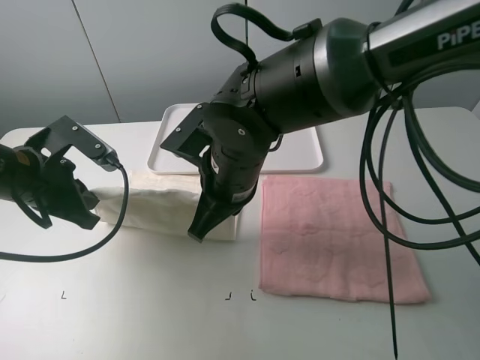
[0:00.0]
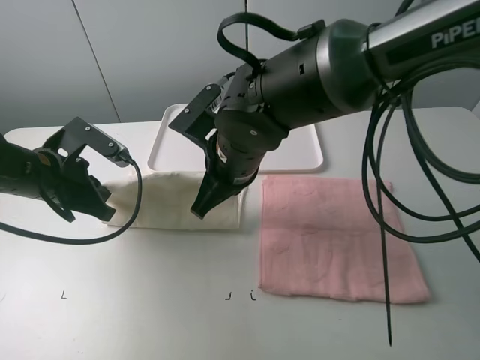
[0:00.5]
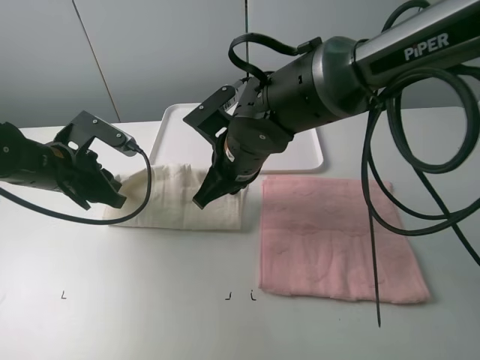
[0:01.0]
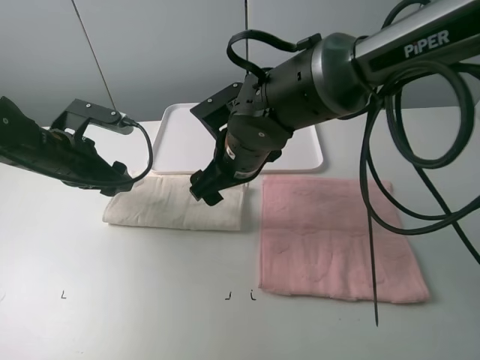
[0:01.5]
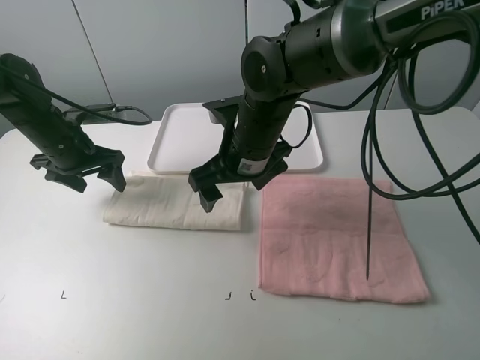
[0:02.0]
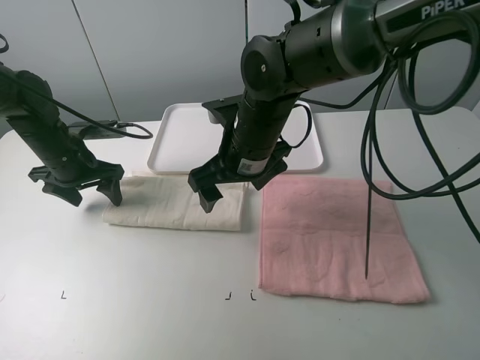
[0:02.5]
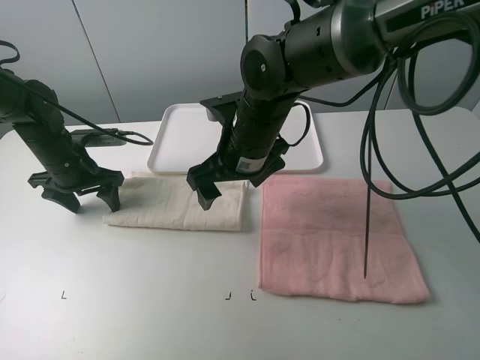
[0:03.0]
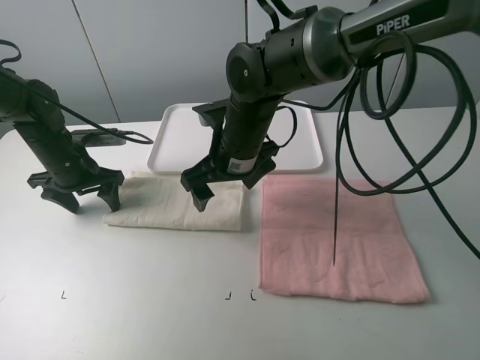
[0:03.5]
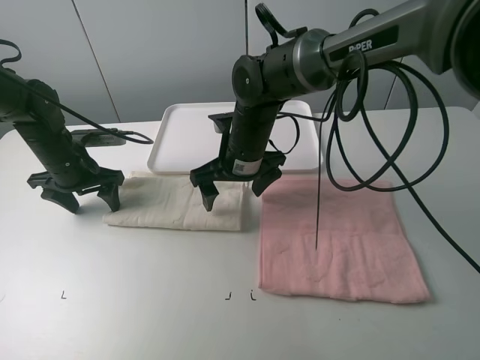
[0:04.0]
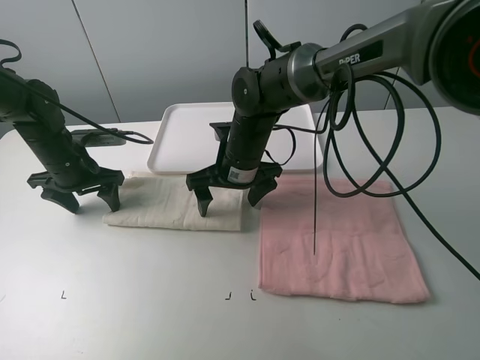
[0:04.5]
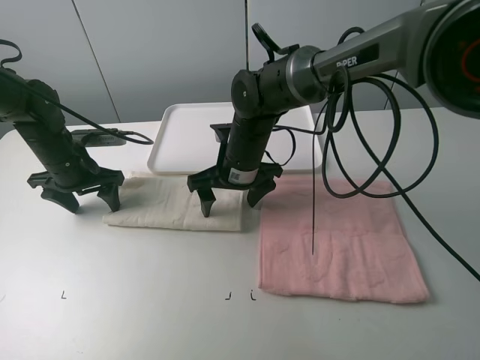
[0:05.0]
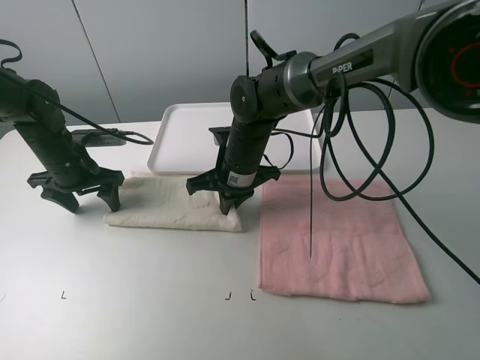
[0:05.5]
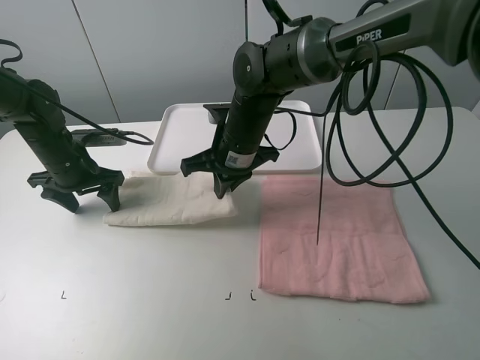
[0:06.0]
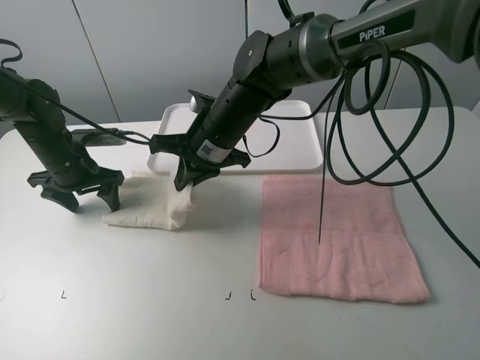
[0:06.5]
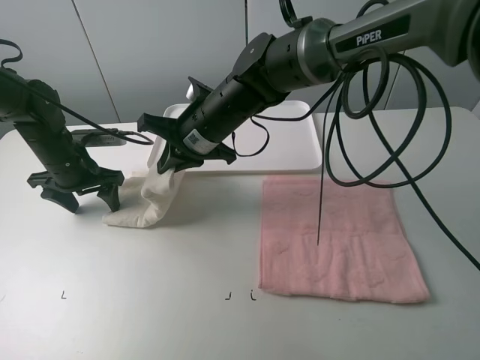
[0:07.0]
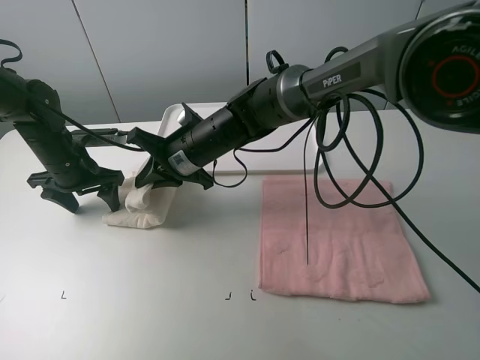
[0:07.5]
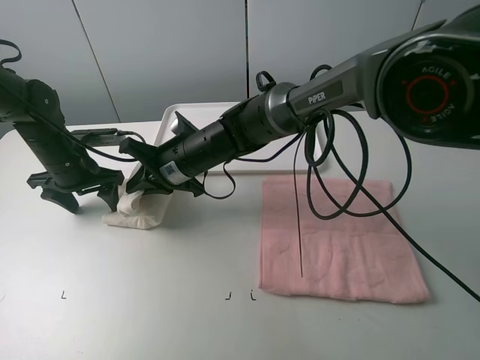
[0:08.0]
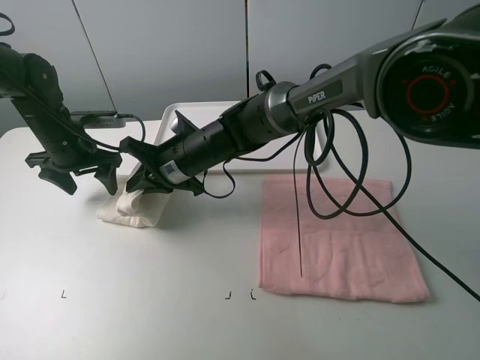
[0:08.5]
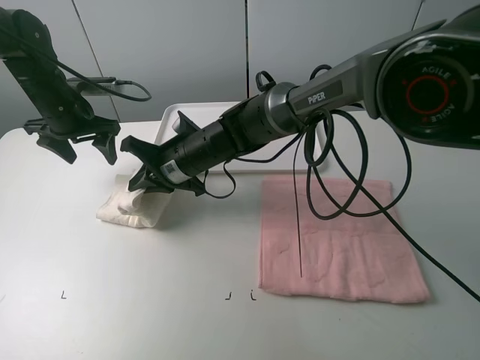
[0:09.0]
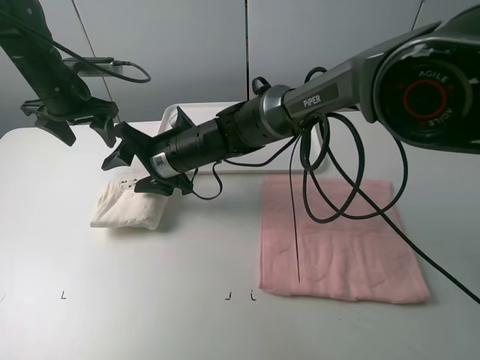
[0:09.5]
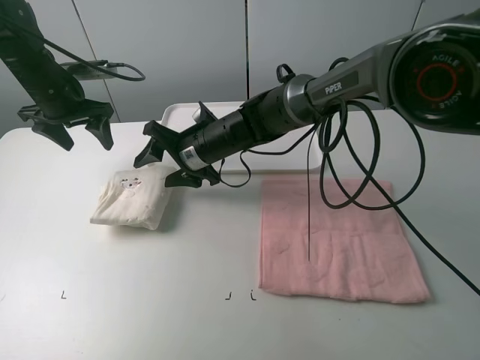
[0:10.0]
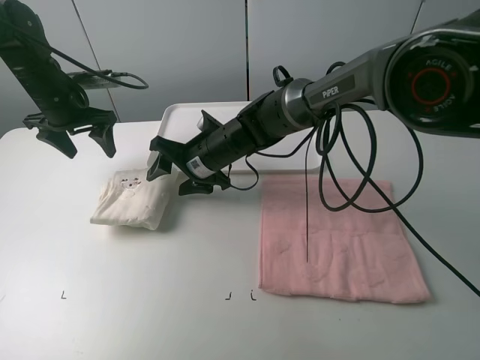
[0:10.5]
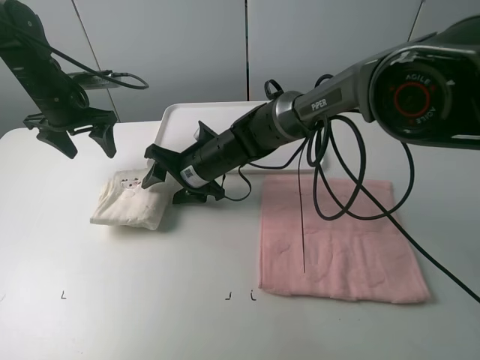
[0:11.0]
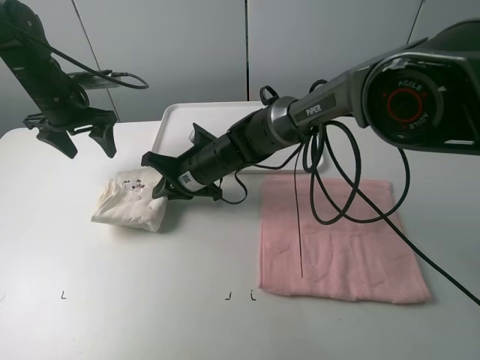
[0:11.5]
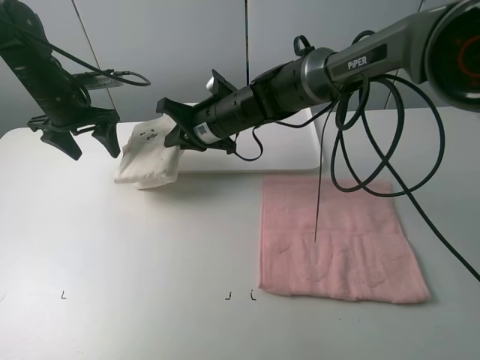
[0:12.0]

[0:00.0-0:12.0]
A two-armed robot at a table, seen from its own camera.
Task of the whole recording: fold one of the towels by two grippers and place it on the tray,then fold another towel by two grippers and place it on the folded towel.
Step, 0:01.5 to 0:03.0: Press the white towel with the left gripper.
Step, 0:03.5 to 0:05.5: Grasp the white towel with the right gripper.
Step, 0:06.0 to 0:09.5: Fold the white towel from right to left with right gripper.
Step, 0:10.0 to 0:11.5: Grasp the white towel with the left gripper.
0:00.0 to 0:02.0: The left gripper heads forward, covering some 10 cm, and opens, while the right gripper shifts by approximately 5 cm, and opens its fingers.
0:02.0 to 0:04.0: The right gripper changes place by roughly 5 cm.
0:04.0 to 0:06.0: The right gripper closes.
0:06.0 to 0:08.0: The right gripper travels to the left by roughly 5 cm.
0:08.0 to 0:10.0: The right gripper opens up. Meanwhile the left gripper goes roughly 10 cm upward and forward.
0:10.0 to 0:12.0: The right gripper moves approximately 5 cm, and closes up.

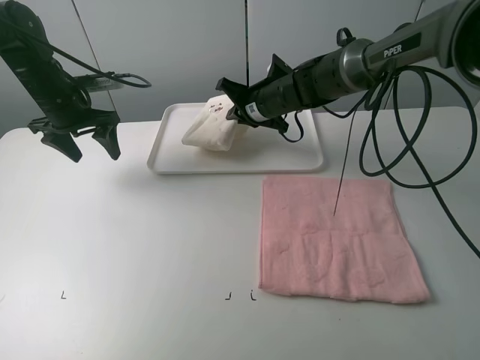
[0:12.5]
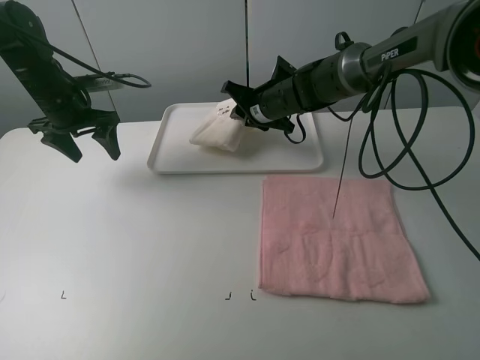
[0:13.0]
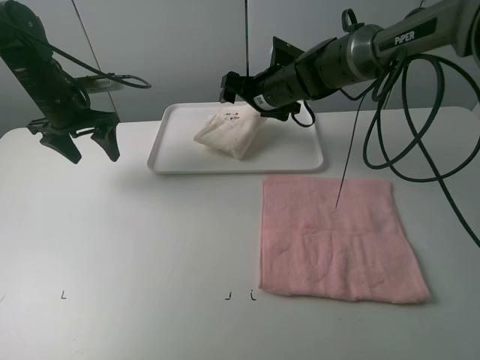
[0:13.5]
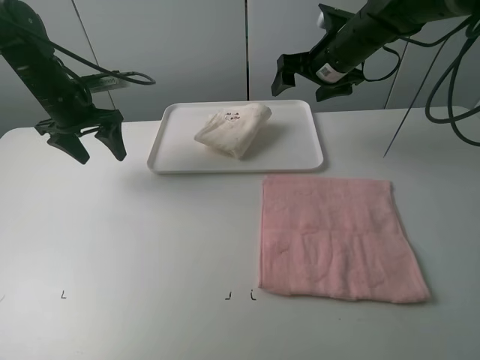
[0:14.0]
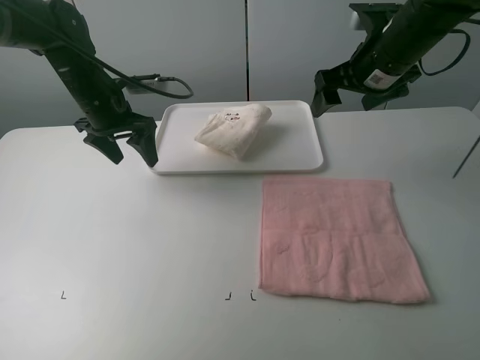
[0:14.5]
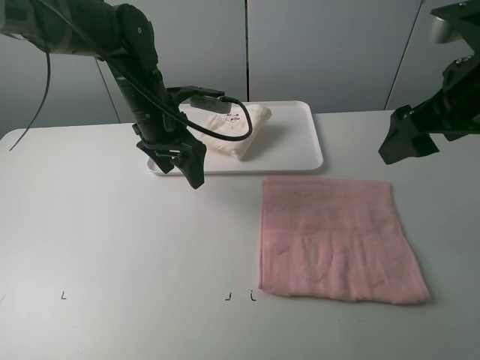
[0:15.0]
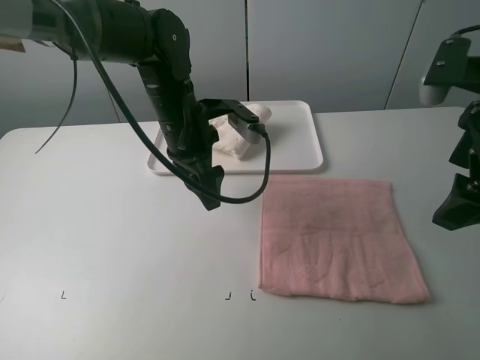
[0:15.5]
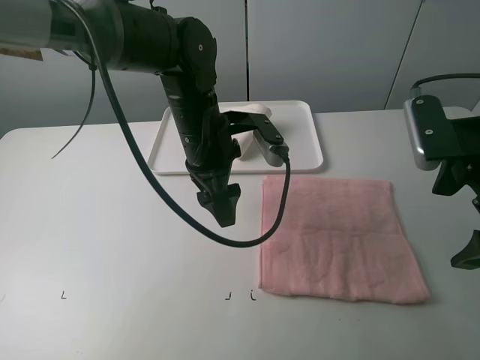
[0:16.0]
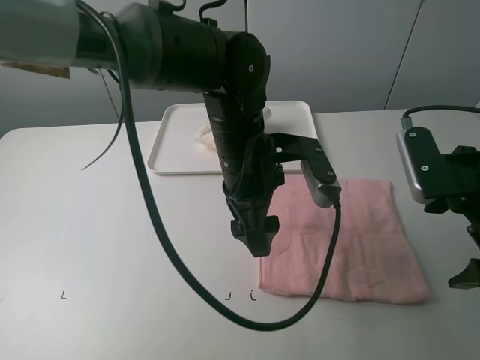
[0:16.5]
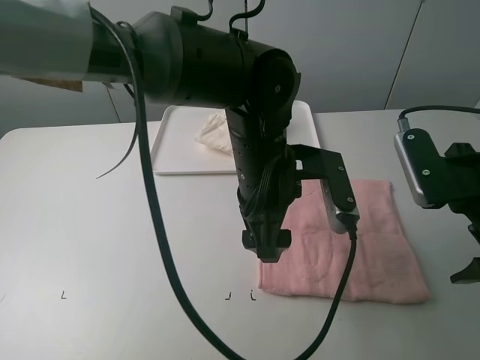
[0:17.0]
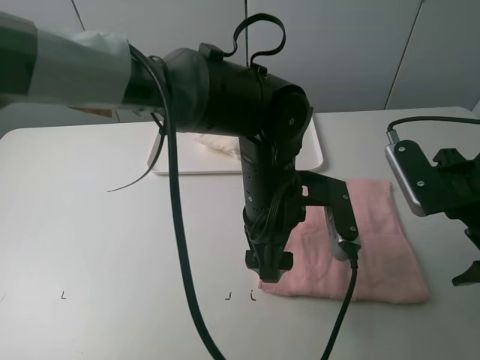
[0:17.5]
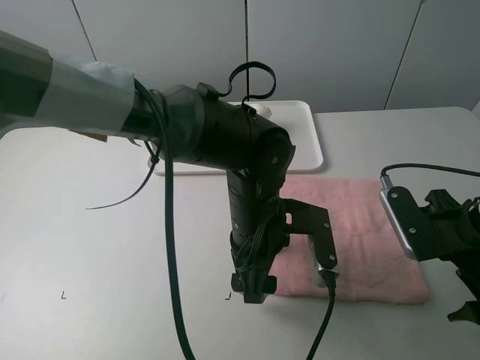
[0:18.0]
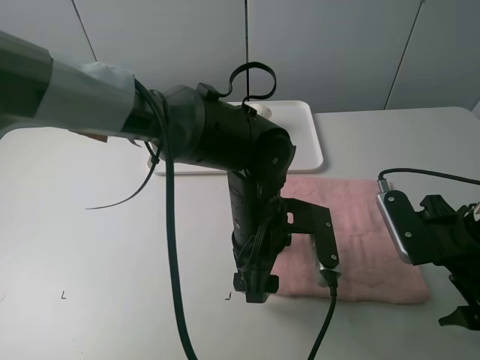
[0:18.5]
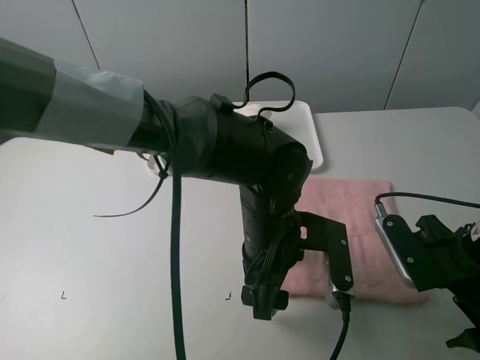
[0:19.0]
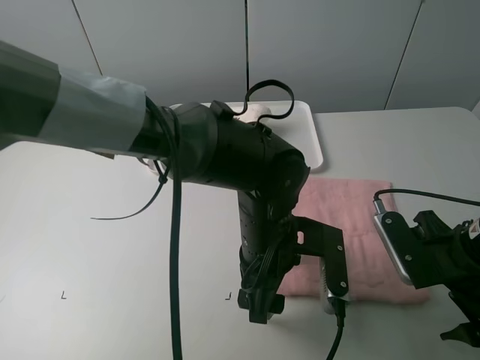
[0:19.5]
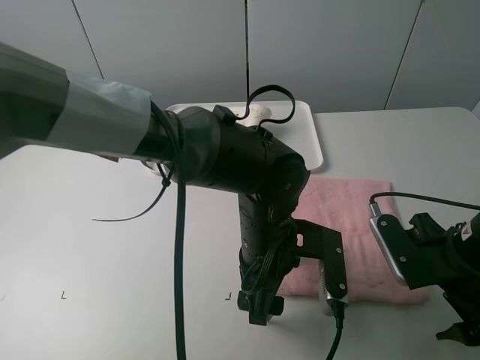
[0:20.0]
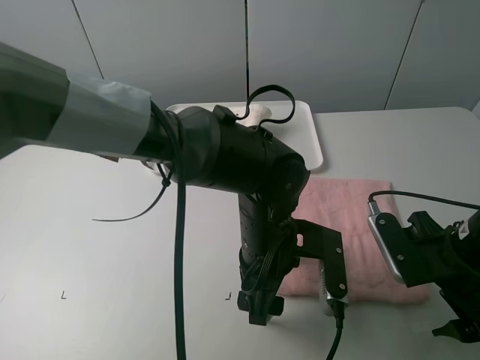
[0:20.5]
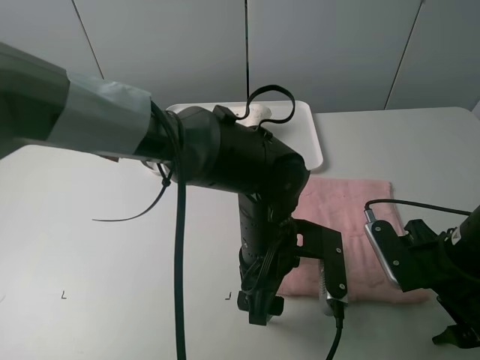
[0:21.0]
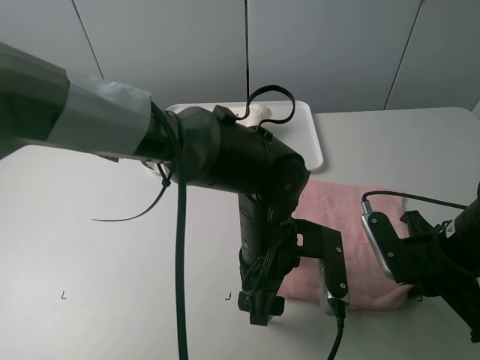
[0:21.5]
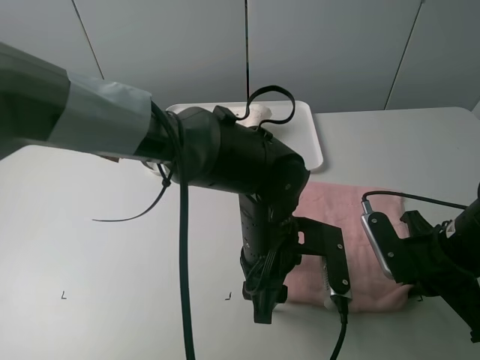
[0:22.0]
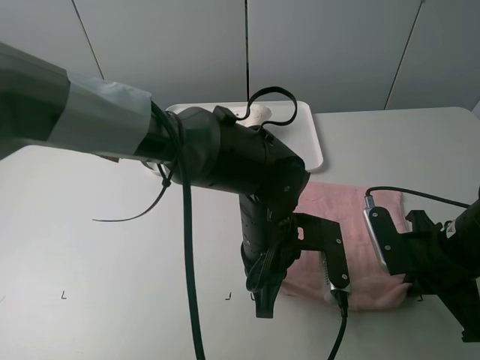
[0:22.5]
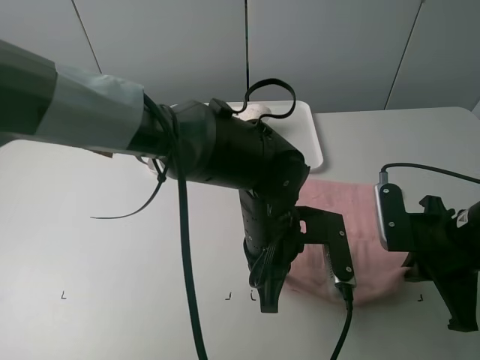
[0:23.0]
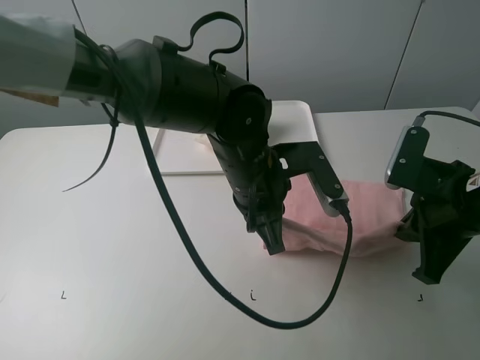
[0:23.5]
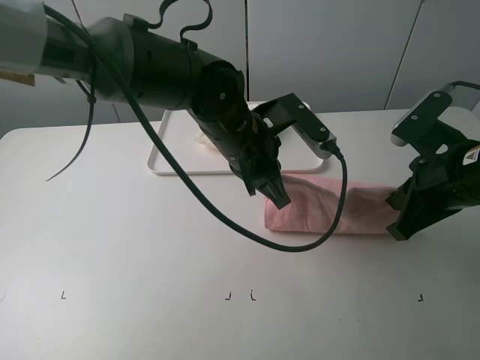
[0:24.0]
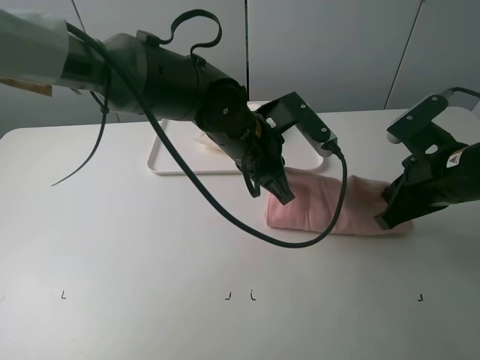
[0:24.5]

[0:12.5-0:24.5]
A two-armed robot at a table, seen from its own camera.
Task of the whole recording: fold one of the towels by two grippers and place it on the tray,then fold another towel by two grippers and place it on the folded towel.
Step, 0:13.5 to 0:22.0: Grasp the pink towel with the left gripper.
0:12.5 to 0:14.5: The left gripper shifts roughly 10 cm to the right. Meanwhile the right gripper heads to the right, upward and backward, covering roughly 20 cm, and opens.
0:14.5 to 0:16.5: The left gripper heads to the right and backward, covering roughly 25 cm, while the right gripper heads backward, covering about 15 cm.
0:16.5 to 0:18.5: Both grippers move downward, some 5 cm.
0:18.5 to 0:20.5: The grippers stay close to where they were, moving slightly.
0:20.5 to 0:22.5: The left gripper closes its fingers. The right gripper closes up.
0:22.5 to 0:24.5: The grippers both shift forward and upward by some 10 cm.

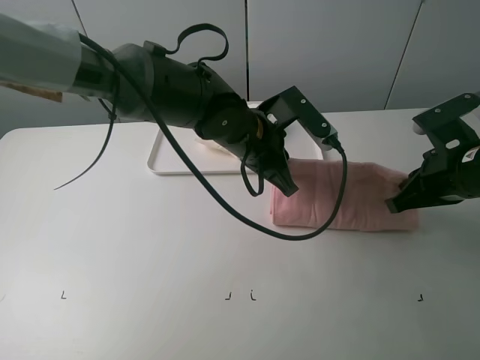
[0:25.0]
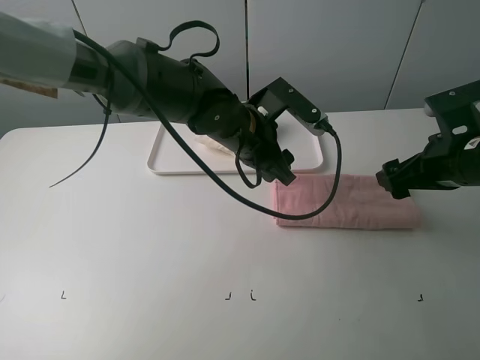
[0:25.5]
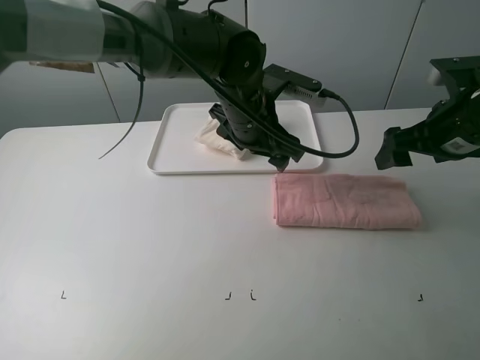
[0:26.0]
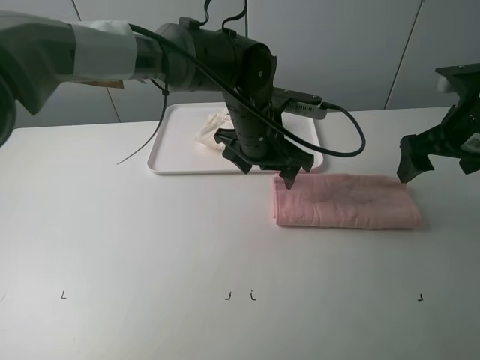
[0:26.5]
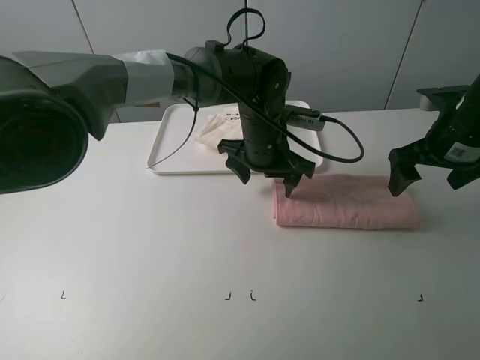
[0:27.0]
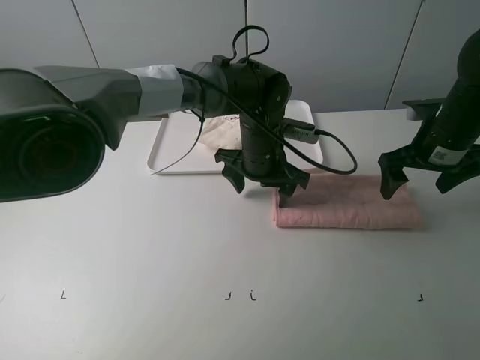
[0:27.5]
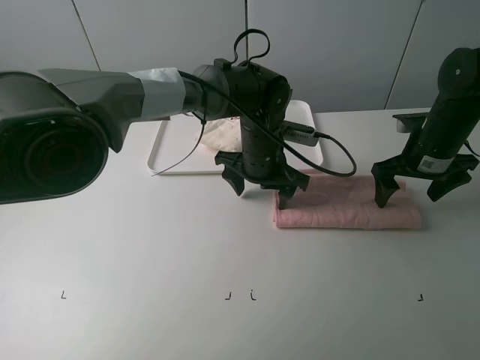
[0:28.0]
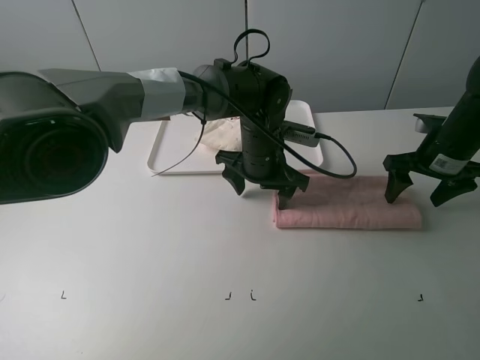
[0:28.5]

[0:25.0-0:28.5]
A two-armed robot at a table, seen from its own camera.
Task of the whole recording: fold one of the towels by two grippers and place it on the tray,then fold another towel by two grippers and place it on the folded towel.
Step, 0:25.5 to 0:27.5: Press the pink towel with the left gripper.
0:25.0 to 0:27.0: The right gripper shifts approximately 5 cm forward, and opens up; the left gripper shifts by approximately 5 cm, and opens up.
0:27.0 to 0:28.5: The right gripper goes about 5 cm downward.
